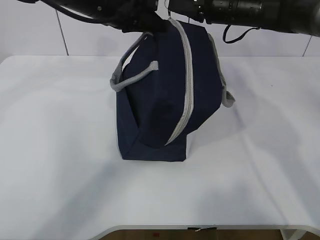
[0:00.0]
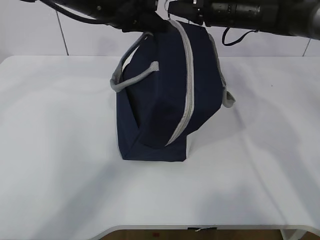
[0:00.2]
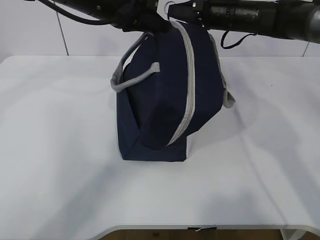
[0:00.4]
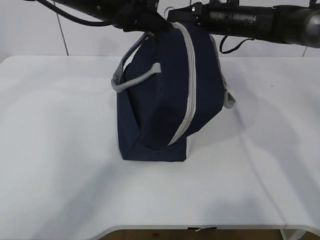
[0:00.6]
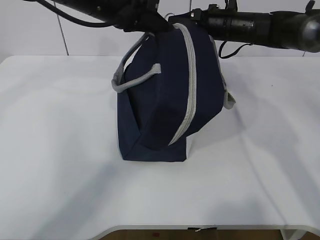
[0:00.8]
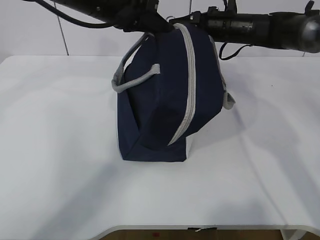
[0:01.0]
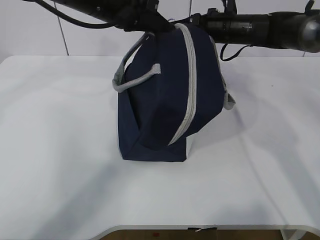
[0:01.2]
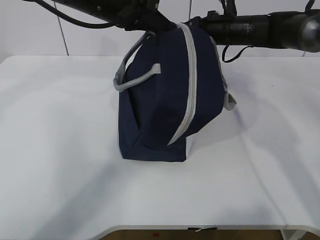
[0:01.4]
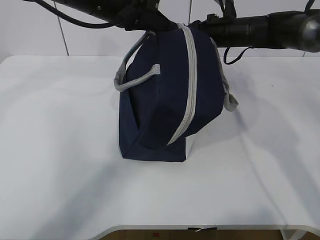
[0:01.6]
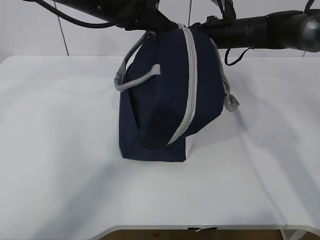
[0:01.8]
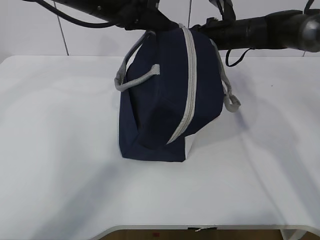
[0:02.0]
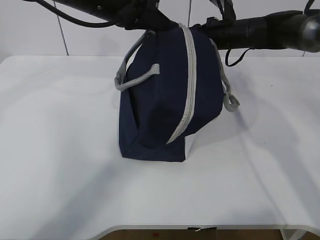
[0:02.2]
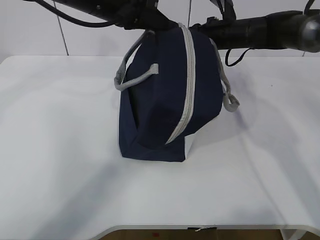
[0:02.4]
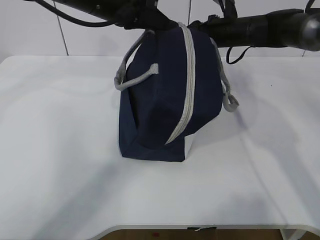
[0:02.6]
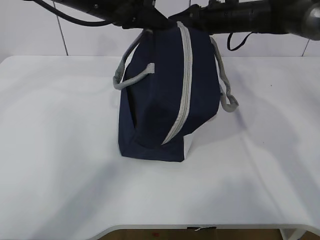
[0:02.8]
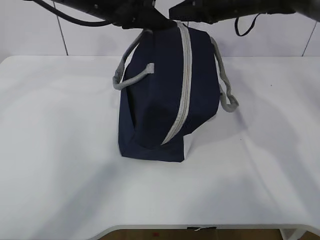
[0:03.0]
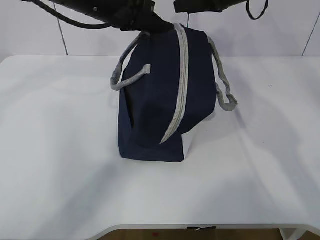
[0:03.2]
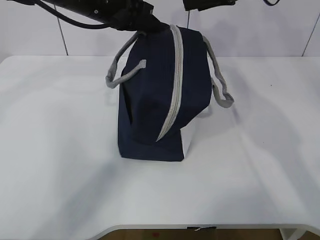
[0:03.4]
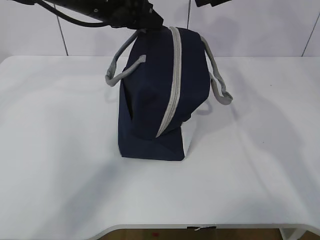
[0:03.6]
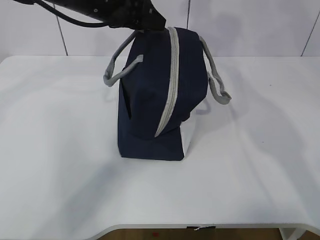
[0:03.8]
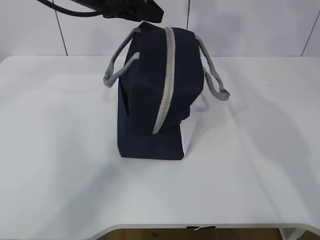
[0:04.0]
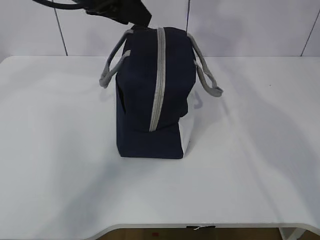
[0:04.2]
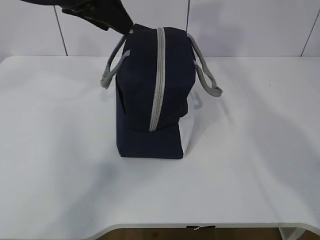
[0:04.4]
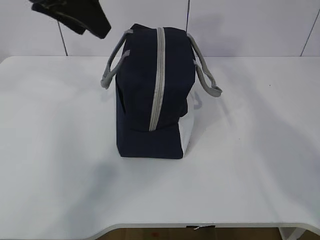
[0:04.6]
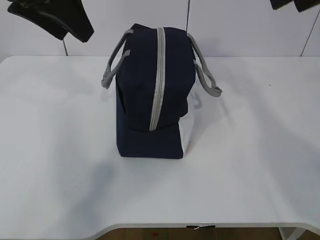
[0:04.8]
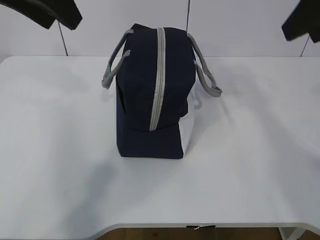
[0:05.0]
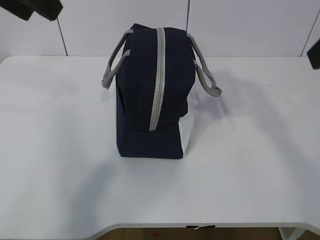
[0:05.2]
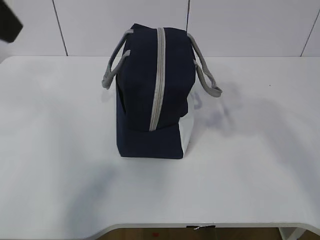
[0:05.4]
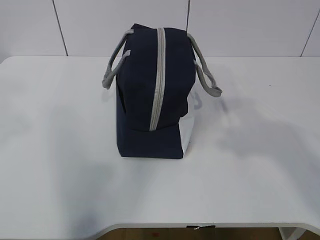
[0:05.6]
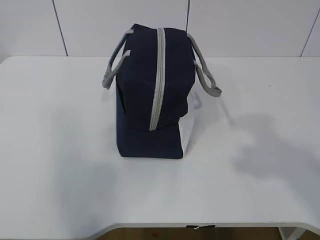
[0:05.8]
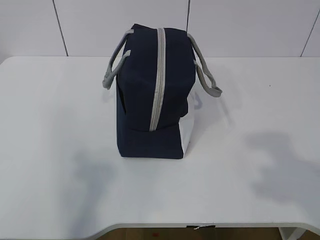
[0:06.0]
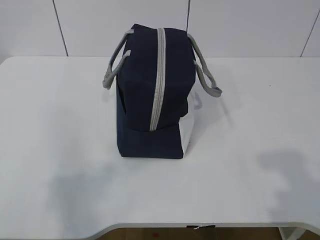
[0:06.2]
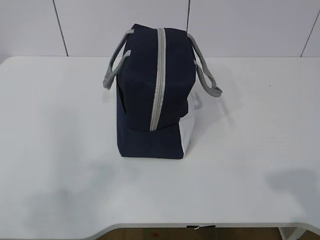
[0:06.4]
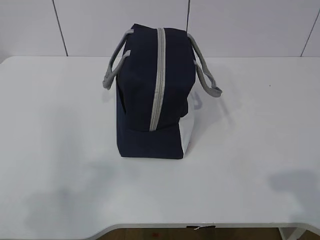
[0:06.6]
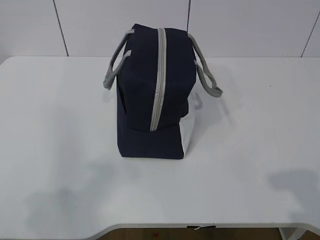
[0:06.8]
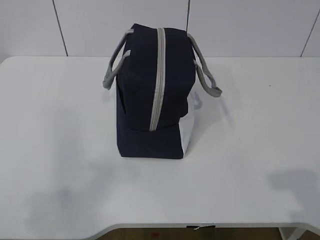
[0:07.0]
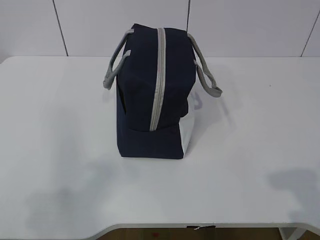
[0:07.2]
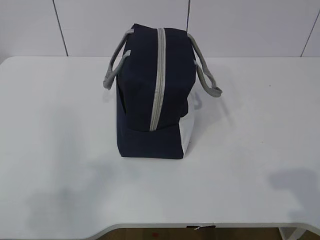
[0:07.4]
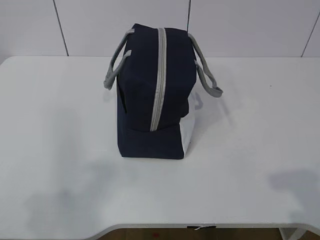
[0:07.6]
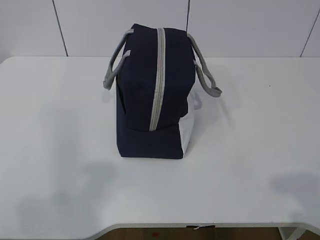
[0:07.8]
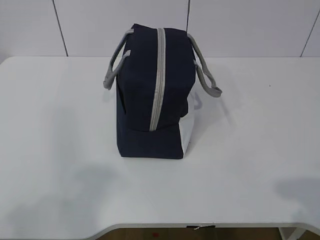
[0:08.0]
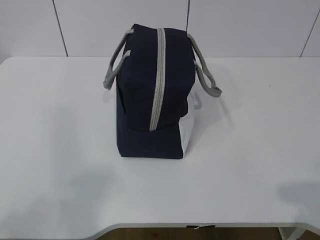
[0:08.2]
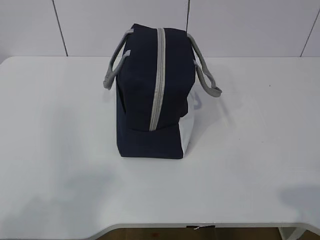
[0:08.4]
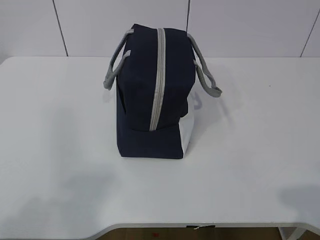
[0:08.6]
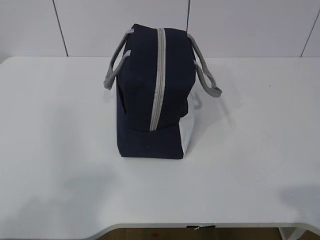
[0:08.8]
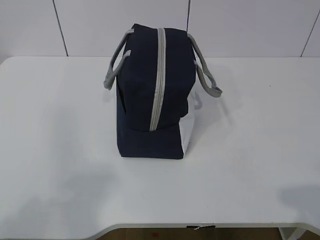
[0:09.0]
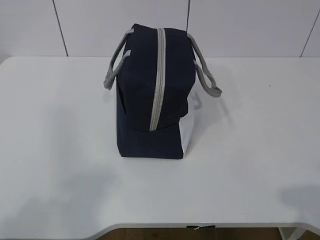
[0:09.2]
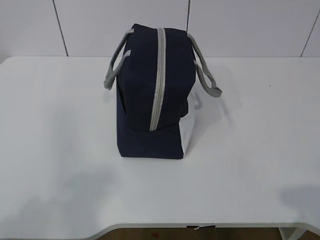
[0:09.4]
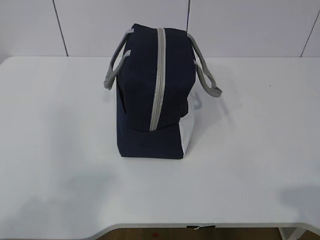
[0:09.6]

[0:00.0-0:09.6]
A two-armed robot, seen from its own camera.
0:00.0 to 0:01.6: The right gripper travels downward by roughly 5 cm.
0:01.6 to 0:03.2: The right gripper is displaced upward by roughly 10 cm, and opens up.
0:03.2 to 0:04.8: The left gripper heads backward, upward and to the left, covering roughly 15 cm, and opens. The right gripper shifts some 25 cm backward and upward.
0:04.8 to 0:06.4: The right gripper goes some 35 cm backward and downward. Meanwhile the left gripper is displaced backward and to the left by about 30 cm.

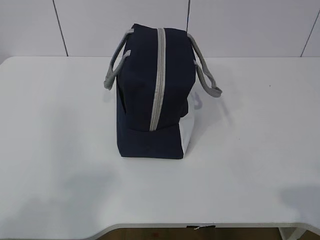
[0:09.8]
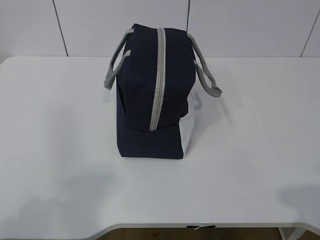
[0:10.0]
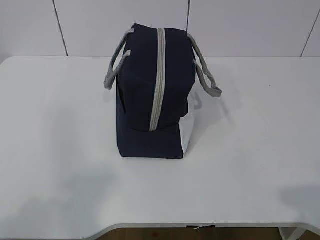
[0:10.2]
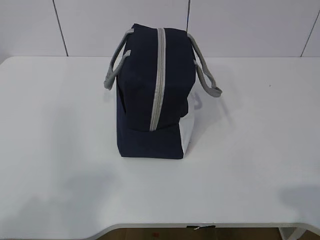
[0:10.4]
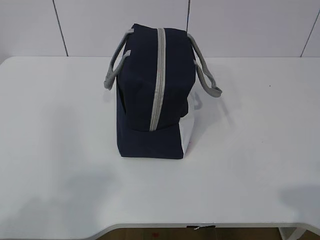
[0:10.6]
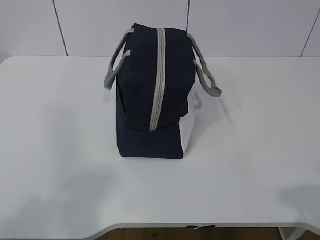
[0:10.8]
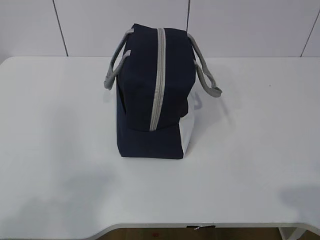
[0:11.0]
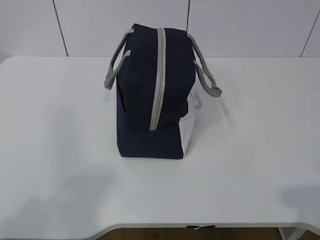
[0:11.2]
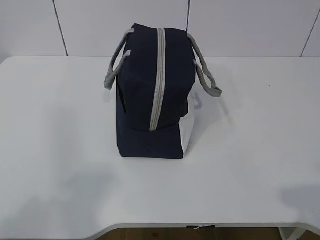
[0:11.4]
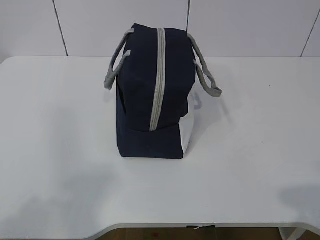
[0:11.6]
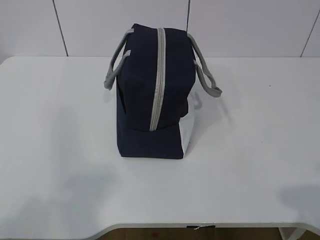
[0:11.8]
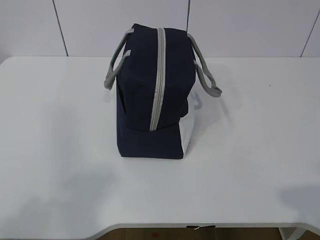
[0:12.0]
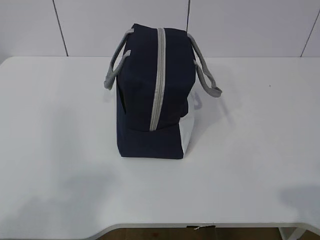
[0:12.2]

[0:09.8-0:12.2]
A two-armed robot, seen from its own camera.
0:09.8 to 0:12.2: The two grippers keep their place.
